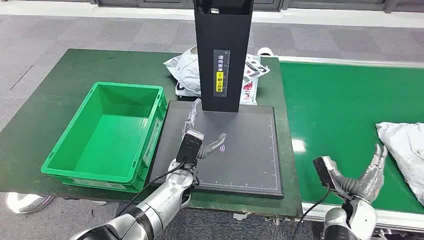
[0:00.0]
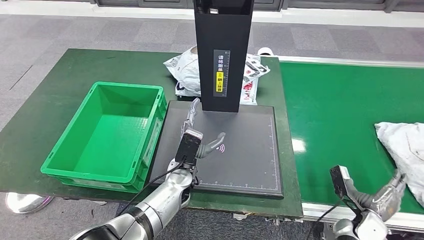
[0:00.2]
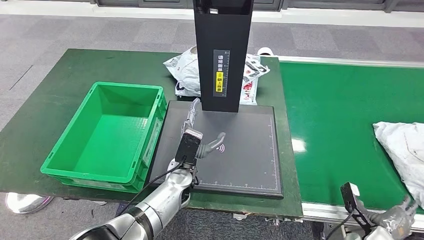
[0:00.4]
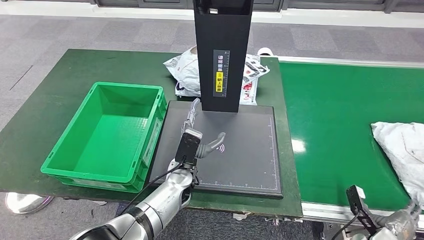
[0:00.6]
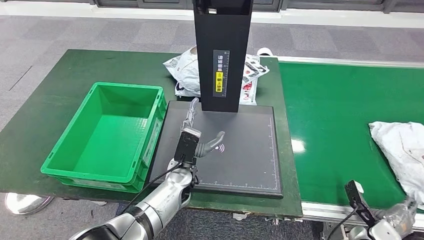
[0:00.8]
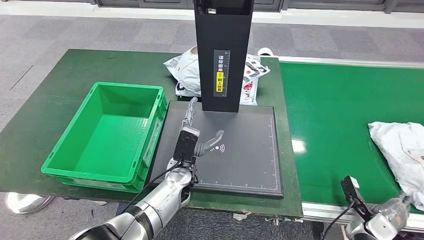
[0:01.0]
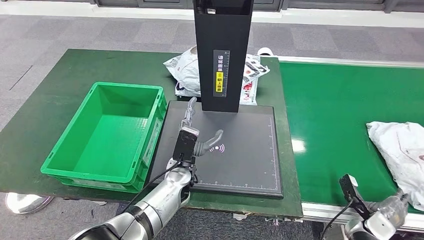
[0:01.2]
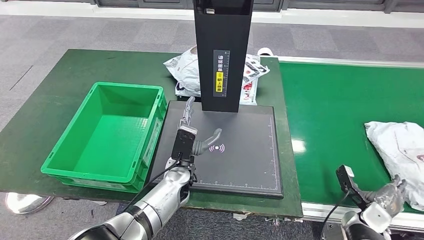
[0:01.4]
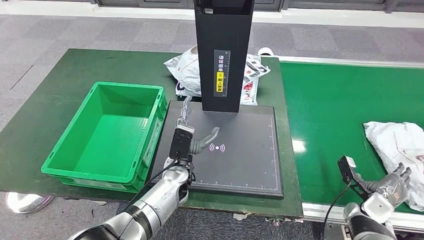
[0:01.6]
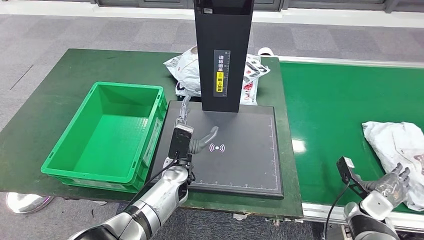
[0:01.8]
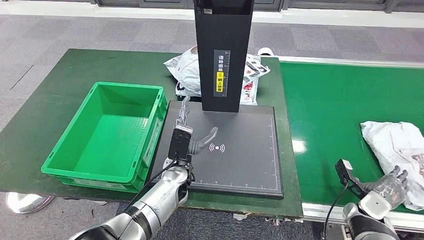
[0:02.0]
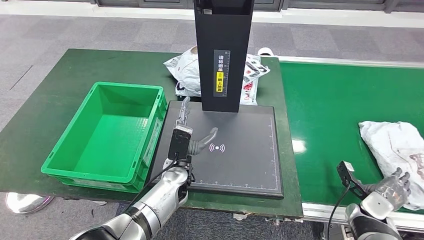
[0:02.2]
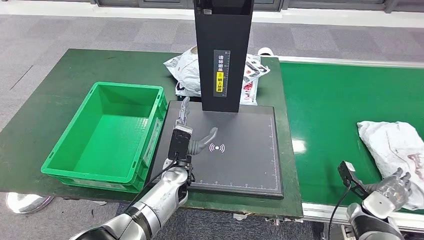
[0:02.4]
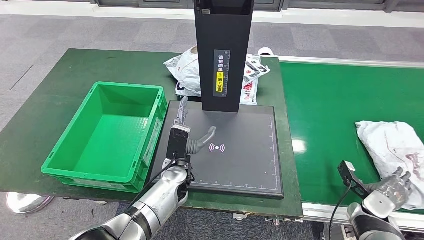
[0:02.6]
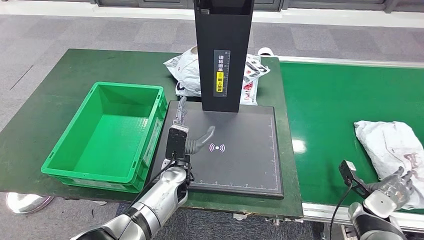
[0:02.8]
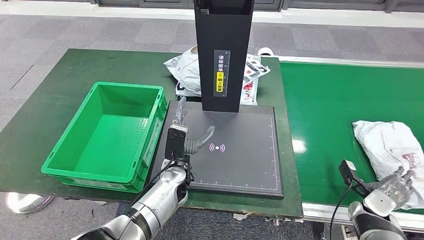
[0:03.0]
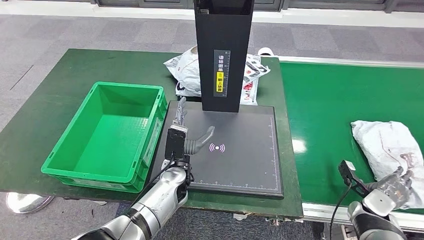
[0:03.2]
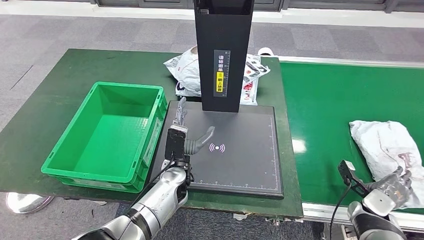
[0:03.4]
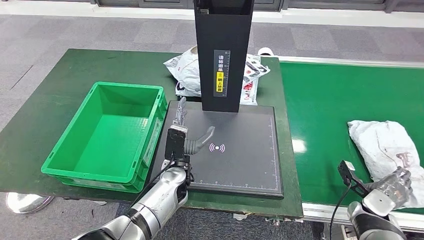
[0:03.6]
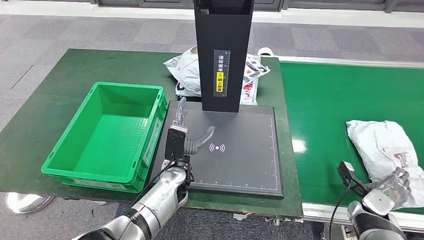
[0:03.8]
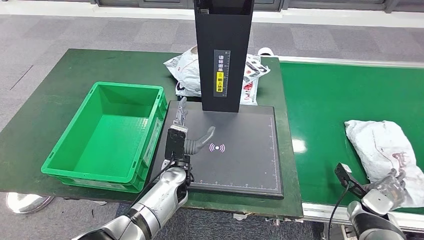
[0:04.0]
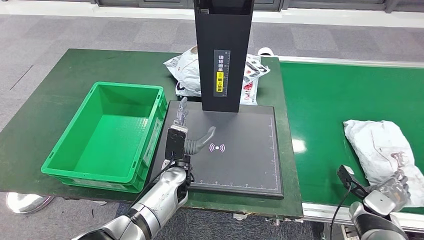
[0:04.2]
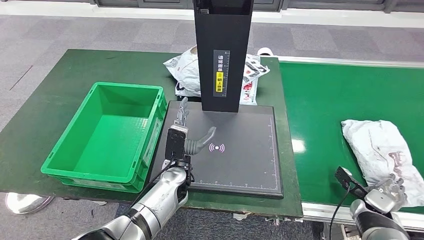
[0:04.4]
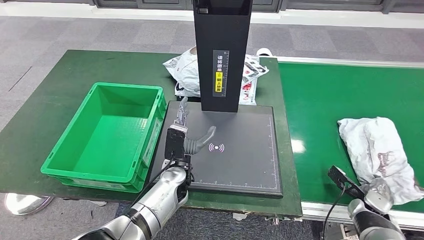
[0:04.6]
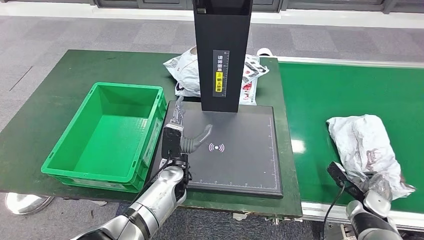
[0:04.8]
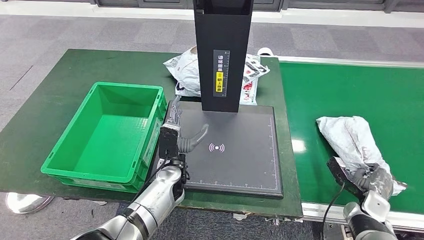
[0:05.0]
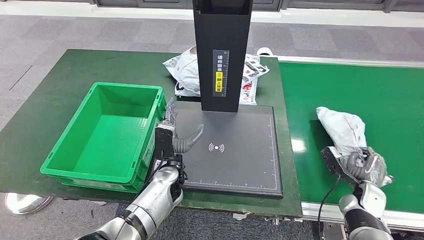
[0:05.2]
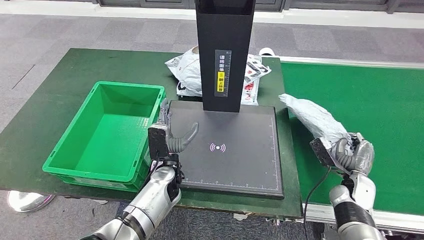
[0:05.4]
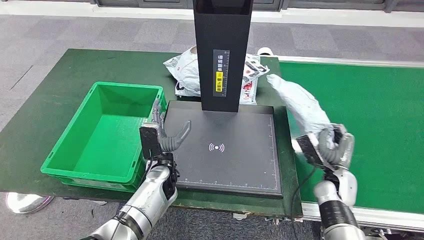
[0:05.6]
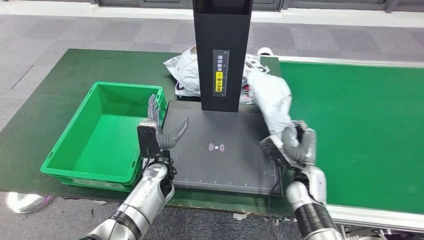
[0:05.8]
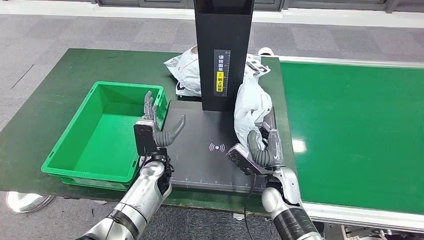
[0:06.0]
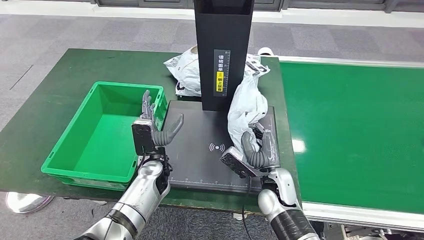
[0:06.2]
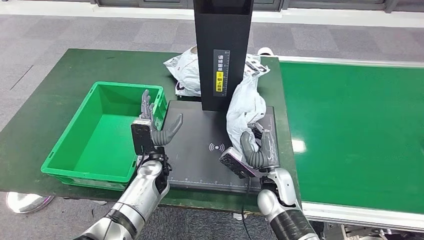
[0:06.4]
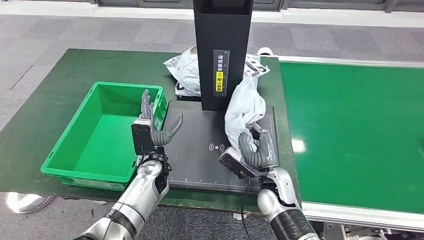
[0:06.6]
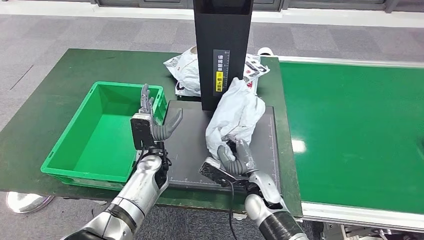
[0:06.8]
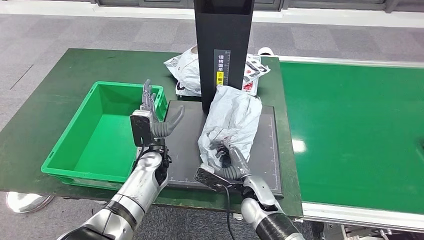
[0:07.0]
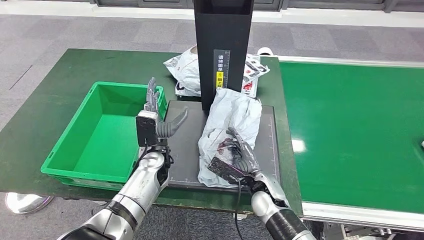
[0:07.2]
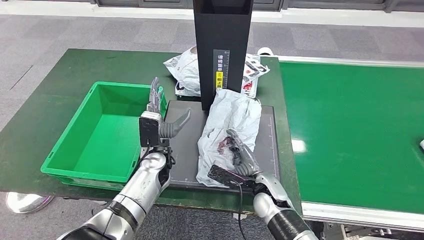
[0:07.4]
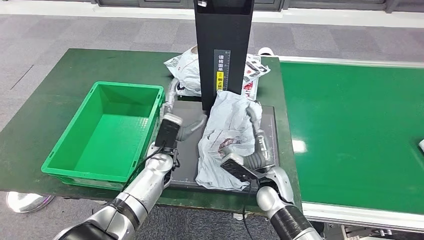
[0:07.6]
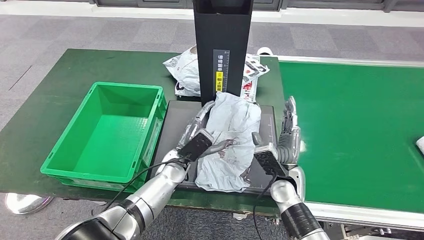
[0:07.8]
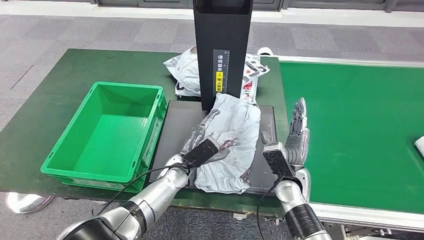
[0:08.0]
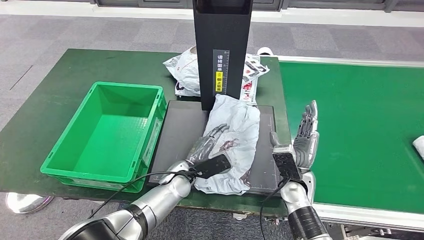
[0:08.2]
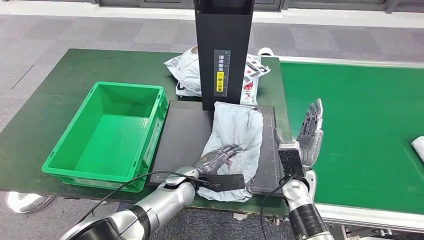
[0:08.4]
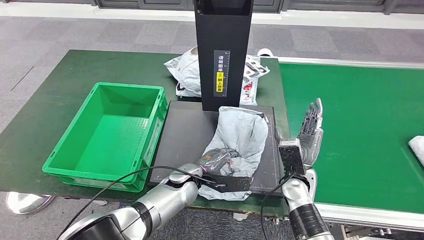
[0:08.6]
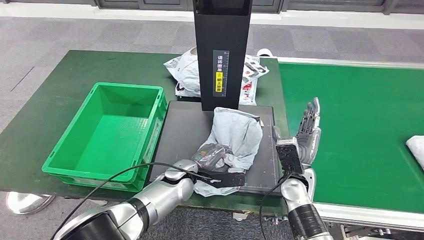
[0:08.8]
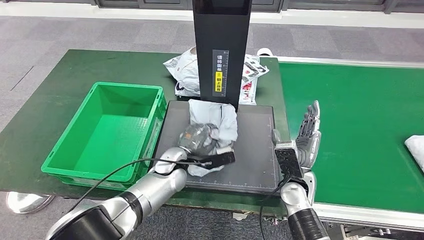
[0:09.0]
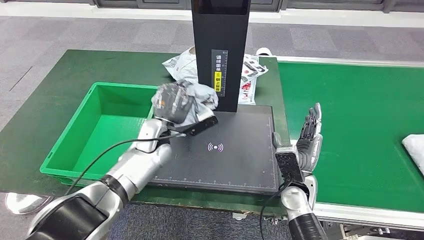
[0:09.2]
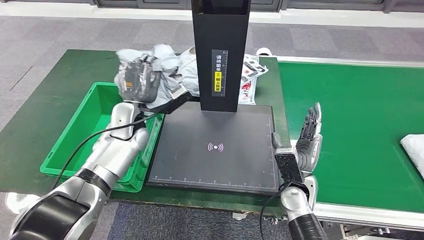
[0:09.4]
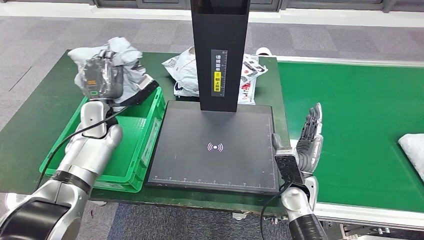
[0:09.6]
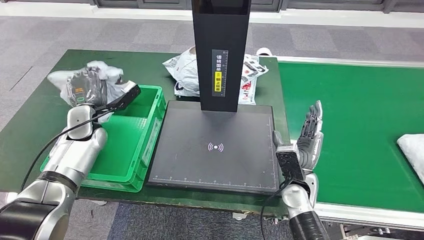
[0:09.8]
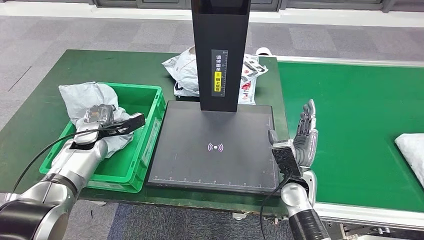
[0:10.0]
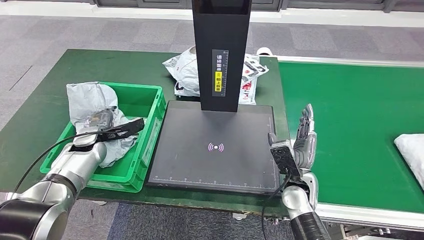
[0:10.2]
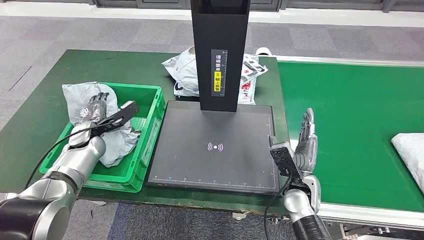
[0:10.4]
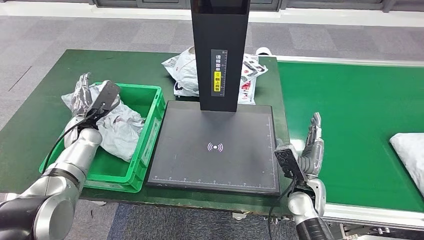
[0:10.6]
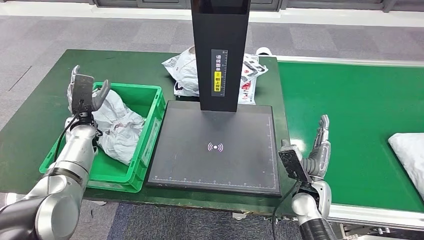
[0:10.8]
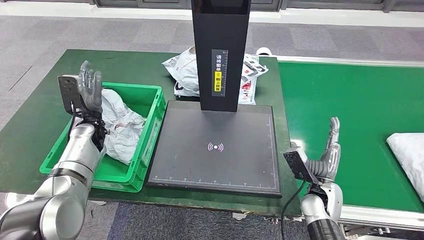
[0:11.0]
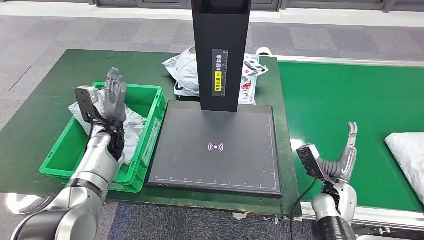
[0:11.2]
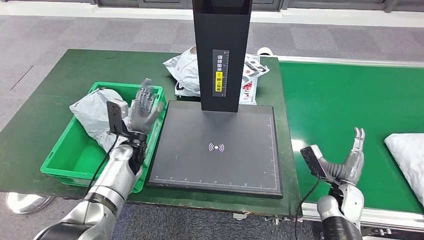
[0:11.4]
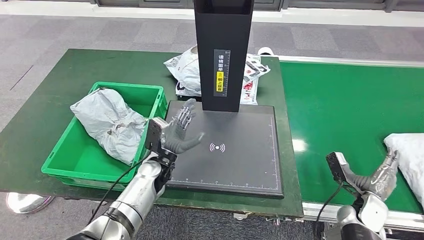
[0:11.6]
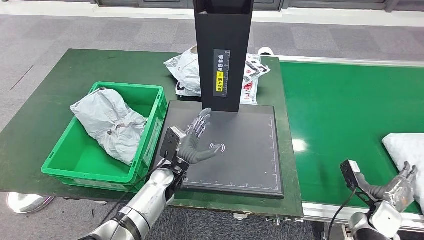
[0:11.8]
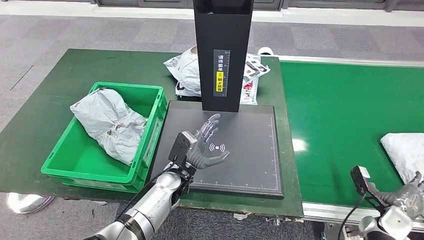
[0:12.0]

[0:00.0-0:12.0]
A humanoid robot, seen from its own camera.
Step, 0:00.0 to 0:05.4: Take the parcel off the conveyor belt.
Step, 0:05.6 to 0:07.2: Place the parcel onto the inbound machine.
Step, 0:07.4 to 0:09.2: Pick up the parcel from the inbound machine.
Step, 0:09.4 to 0:10.8: Put the parcel inside the courier box.
0:01.6 to 0:03.0: The hands make only small movements.
0:03.0 to 0:04.4: The hands make only small movements.

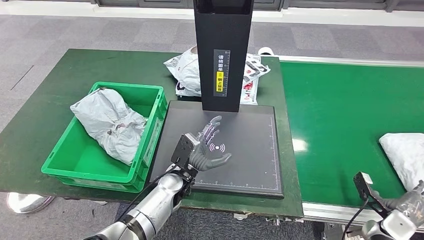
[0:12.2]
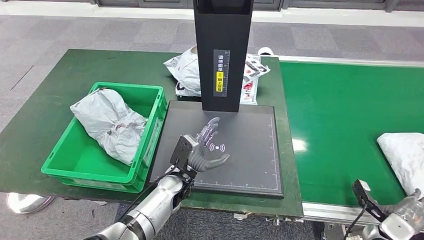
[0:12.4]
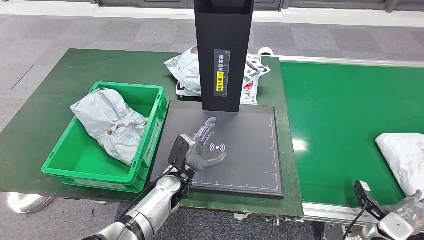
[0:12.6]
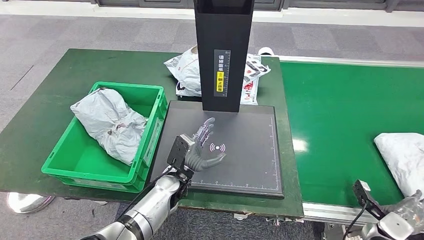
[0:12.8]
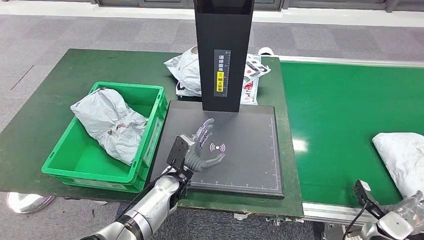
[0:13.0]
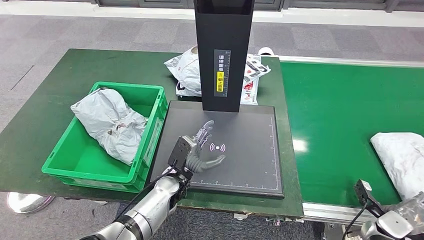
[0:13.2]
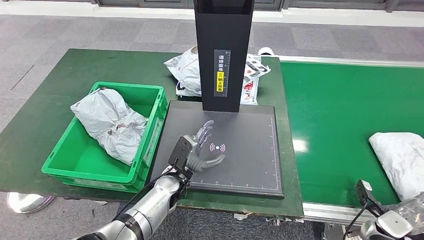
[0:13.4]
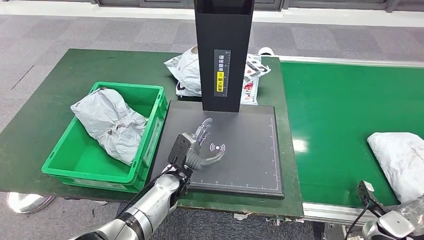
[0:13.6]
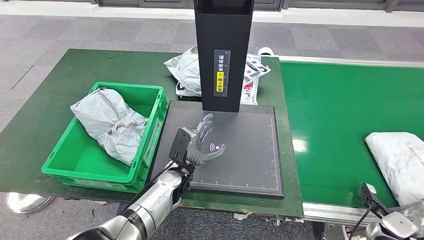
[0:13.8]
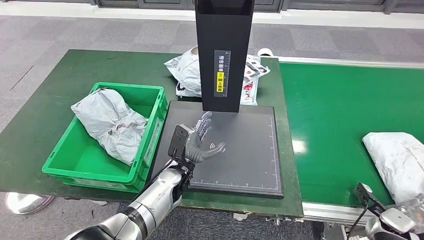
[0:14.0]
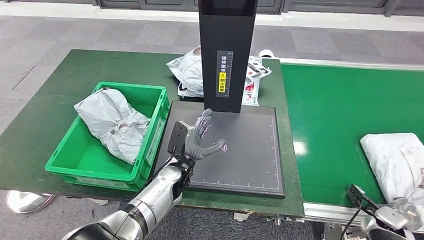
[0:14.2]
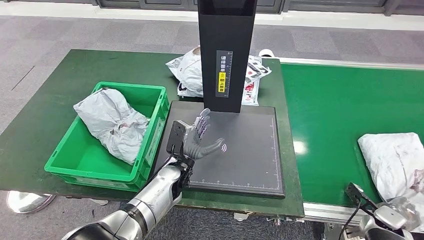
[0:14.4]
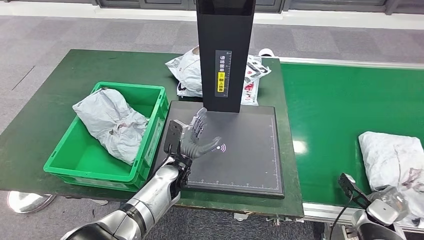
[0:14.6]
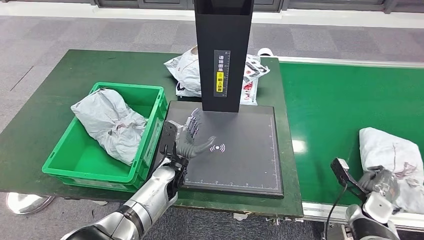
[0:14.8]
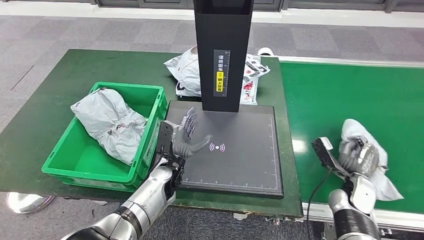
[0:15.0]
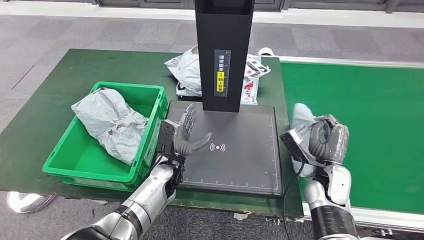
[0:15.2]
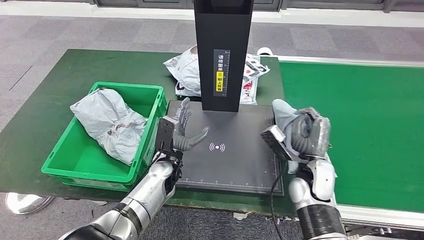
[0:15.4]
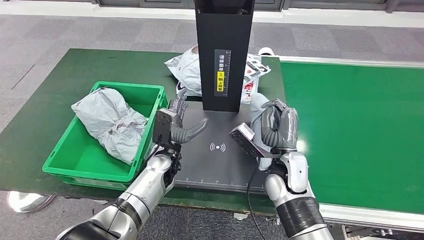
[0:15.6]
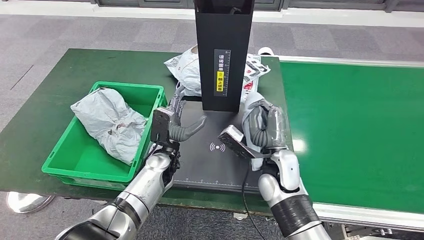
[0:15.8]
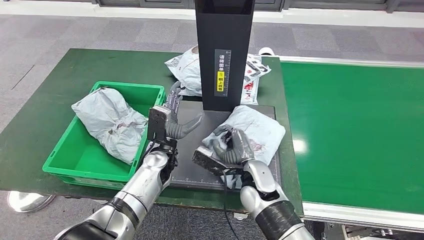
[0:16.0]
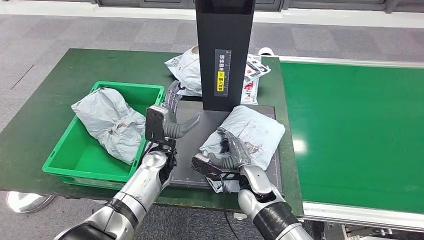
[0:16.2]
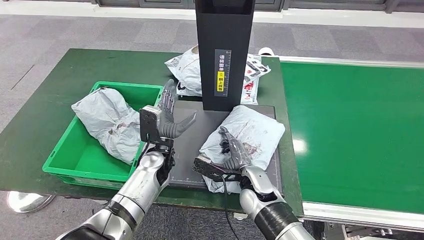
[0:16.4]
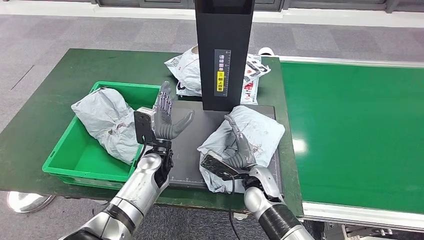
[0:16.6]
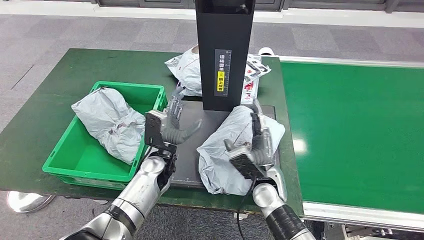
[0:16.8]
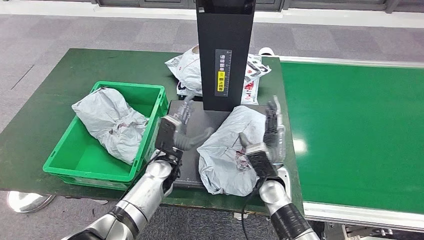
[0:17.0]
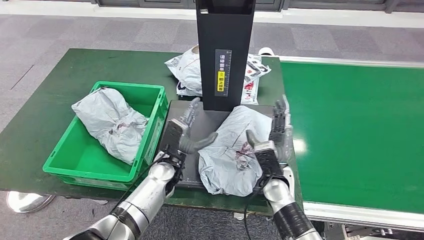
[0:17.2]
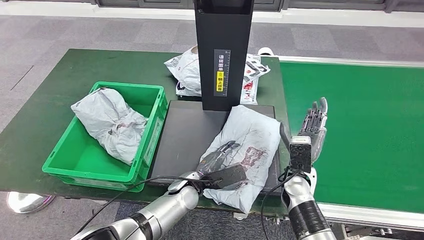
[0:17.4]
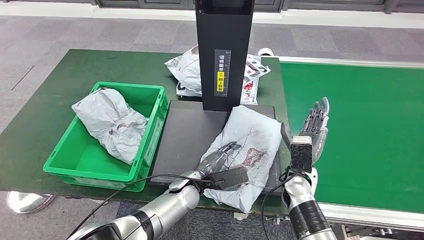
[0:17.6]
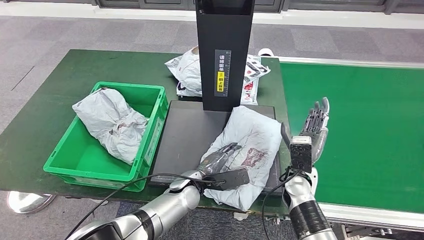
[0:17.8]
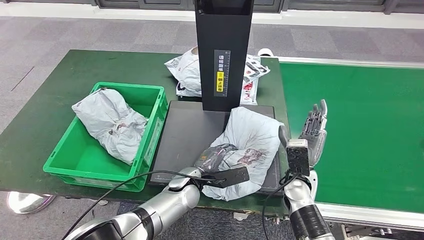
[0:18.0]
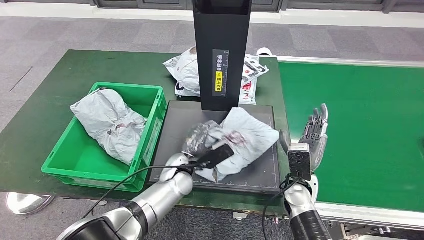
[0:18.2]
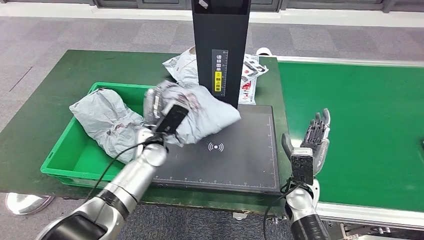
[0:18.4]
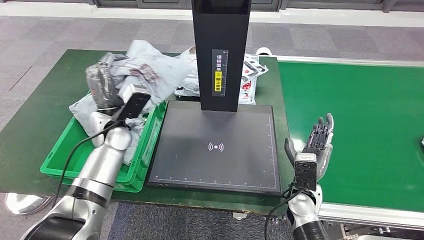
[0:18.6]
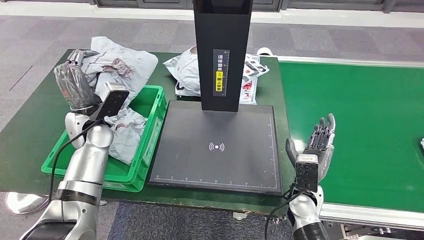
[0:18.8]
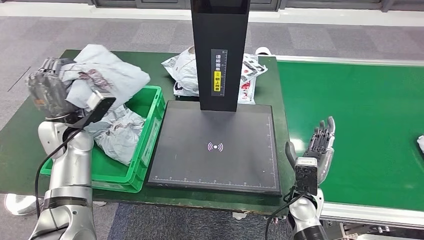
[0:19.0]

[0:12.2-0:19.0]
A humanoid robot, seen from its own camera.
Step, 0:12.2 to 0:15.2: Pick up the parcel from the conveyor belt.
Step, 0:15.6 to 0:16.6: Place the parcel onto the inbound machine.
Step, 0:16.8 to 0:18.6: Pick up the parcel from the inbound machine.
0:12.2 to 0:13.6: The hands make only small movements.
0:13.6 to 0:15.0: The right hand heads to the left, forward and upward, covering roughly 15 cm.
0:16.2 to 0:17.6: The right hand heads to the right, covering roughly 10 cm; the left hand goes roughly 10 cm to the right, downward and backward.
